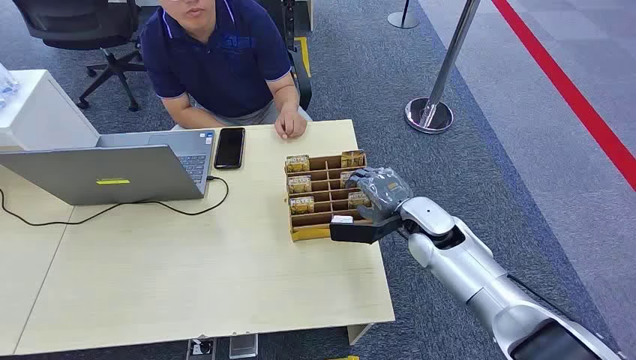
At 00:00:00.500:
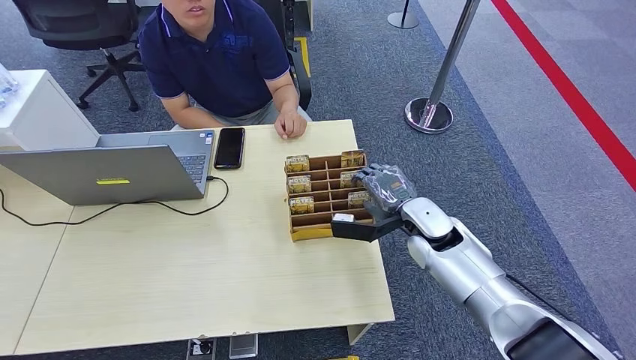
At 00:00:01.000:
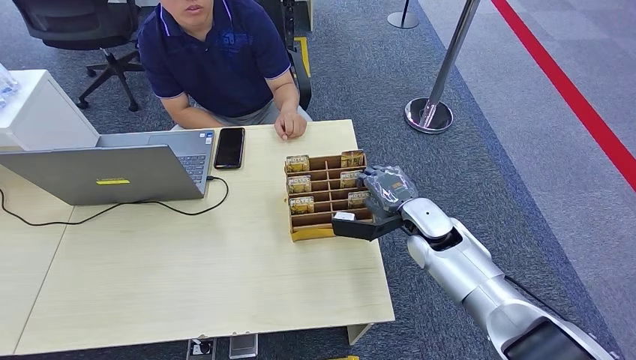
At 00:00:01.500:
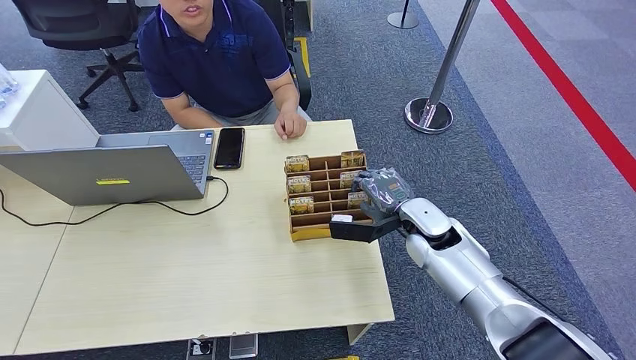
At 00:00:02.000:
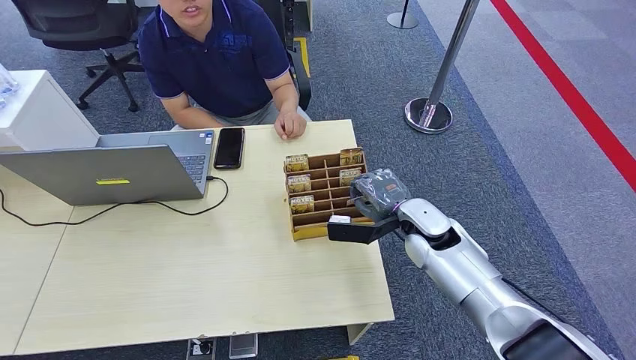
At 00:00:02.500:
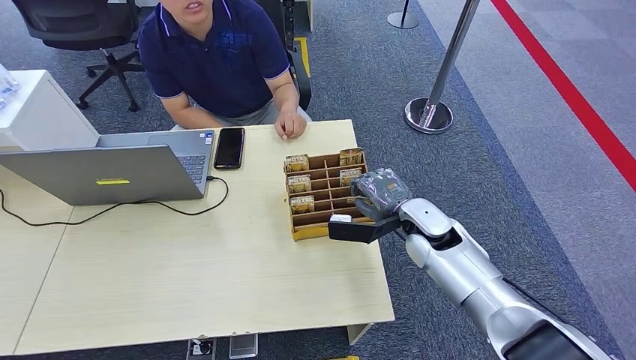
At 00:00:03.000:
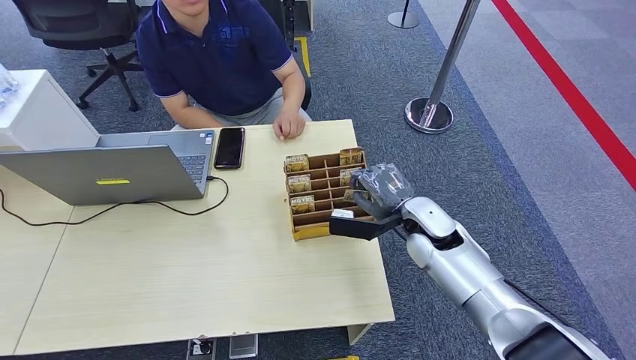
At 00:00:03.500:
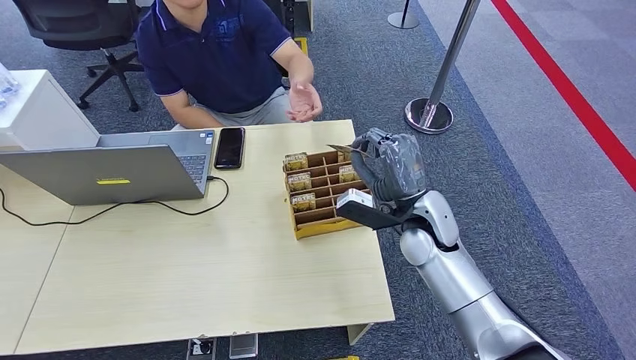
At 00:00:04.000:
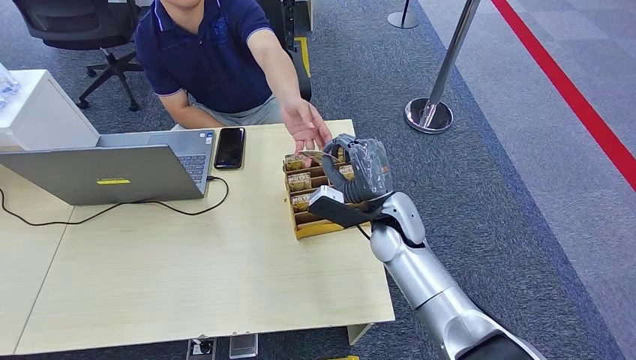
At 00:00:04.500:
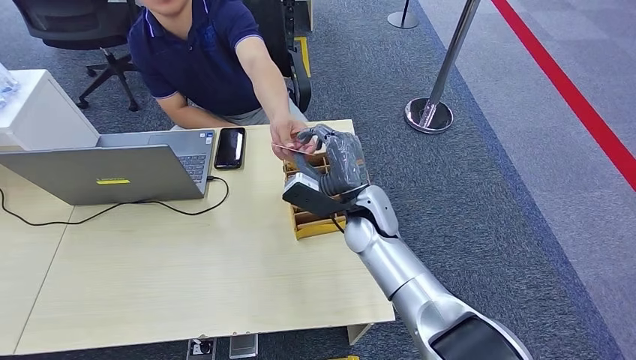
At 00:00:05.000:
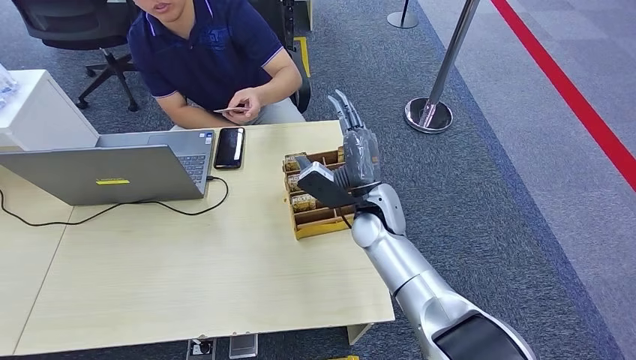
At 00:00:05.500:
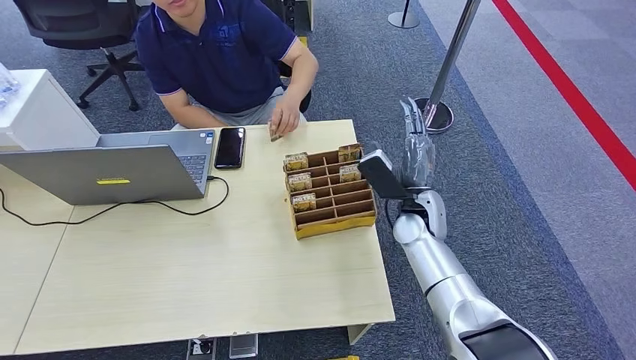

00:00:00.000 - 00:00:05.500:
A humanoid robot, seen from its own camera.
Step, 00:00:00.000 - 00:00:03.500: Pick up the key card from the card box.
Step, 00:00:04.000 - 00:00:05.000: Hand the key card to the target.
00:00:02.000 - 00:00:03.500: The right hand ends up approximately 5 cm from where it was.
00:00:03.500 - 00:00:05.500: The right hand goes to the left and returns, some 10 cm each way.
